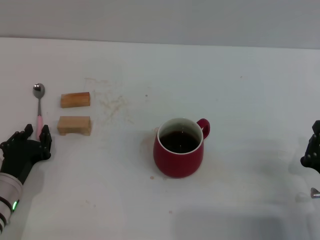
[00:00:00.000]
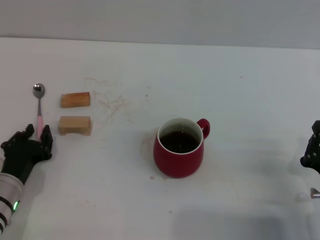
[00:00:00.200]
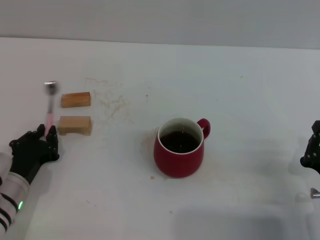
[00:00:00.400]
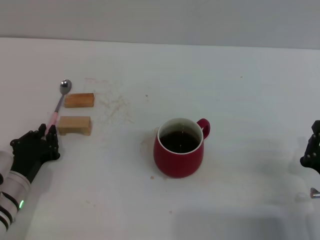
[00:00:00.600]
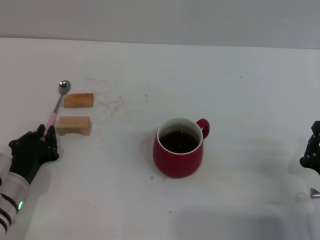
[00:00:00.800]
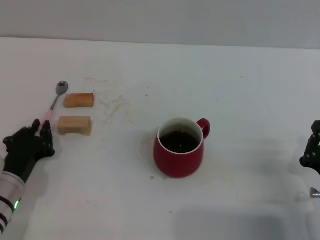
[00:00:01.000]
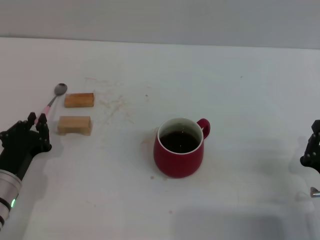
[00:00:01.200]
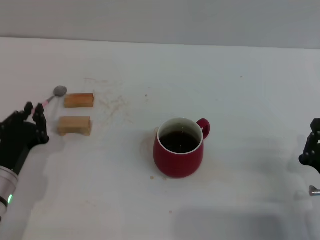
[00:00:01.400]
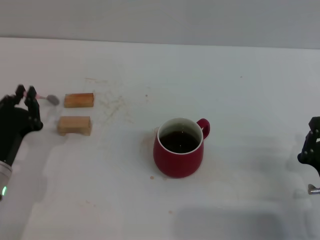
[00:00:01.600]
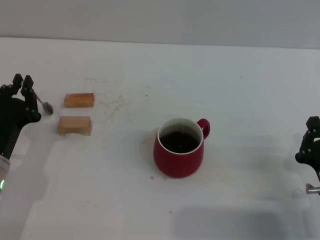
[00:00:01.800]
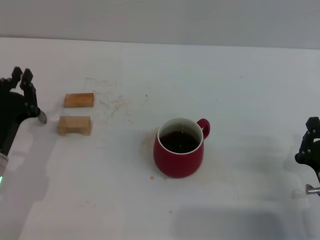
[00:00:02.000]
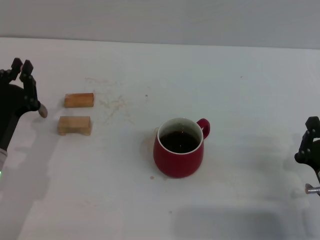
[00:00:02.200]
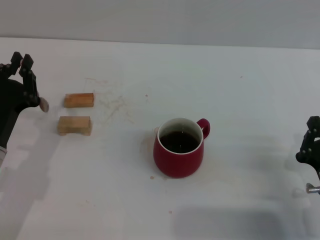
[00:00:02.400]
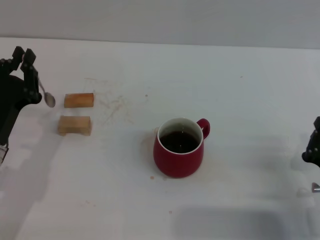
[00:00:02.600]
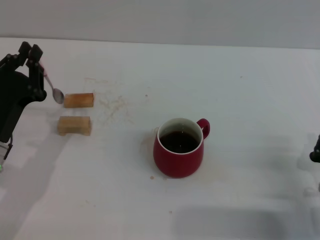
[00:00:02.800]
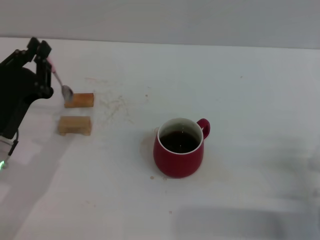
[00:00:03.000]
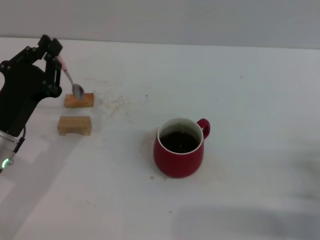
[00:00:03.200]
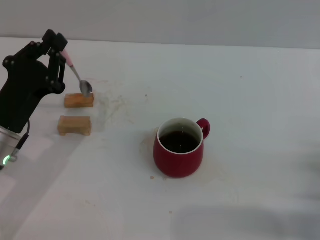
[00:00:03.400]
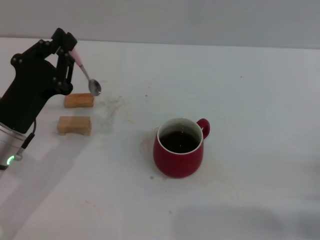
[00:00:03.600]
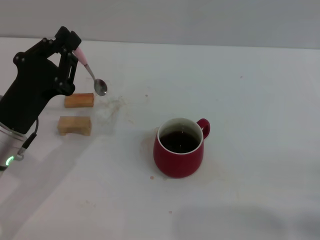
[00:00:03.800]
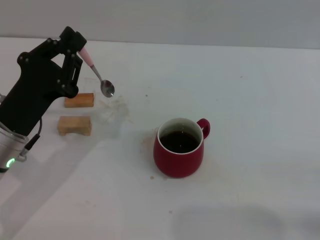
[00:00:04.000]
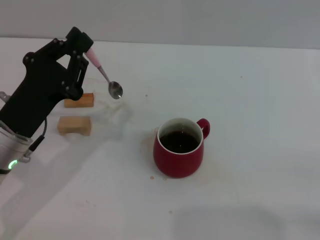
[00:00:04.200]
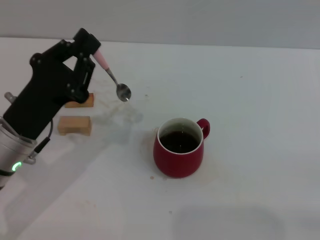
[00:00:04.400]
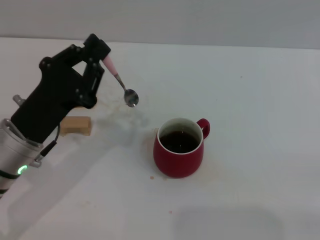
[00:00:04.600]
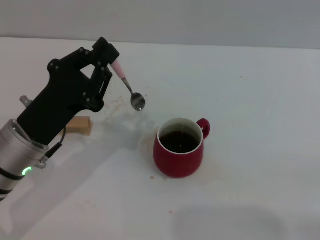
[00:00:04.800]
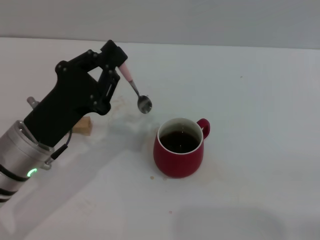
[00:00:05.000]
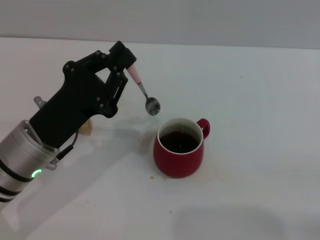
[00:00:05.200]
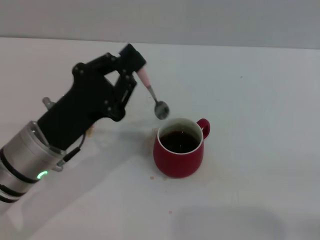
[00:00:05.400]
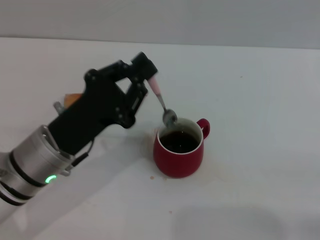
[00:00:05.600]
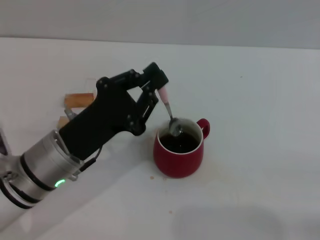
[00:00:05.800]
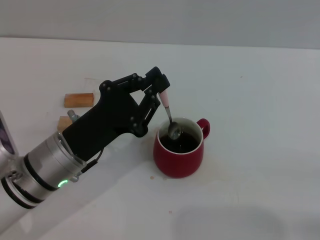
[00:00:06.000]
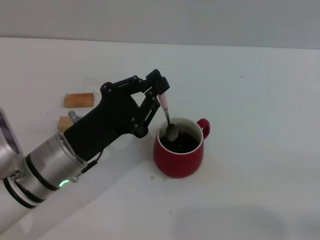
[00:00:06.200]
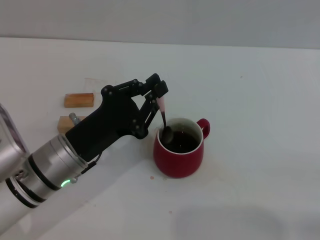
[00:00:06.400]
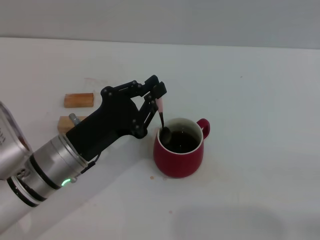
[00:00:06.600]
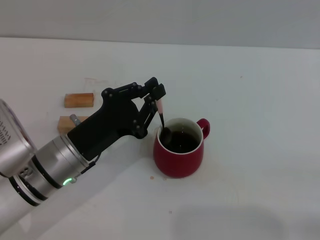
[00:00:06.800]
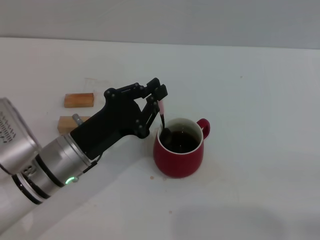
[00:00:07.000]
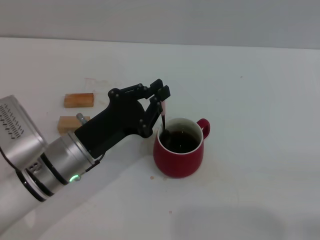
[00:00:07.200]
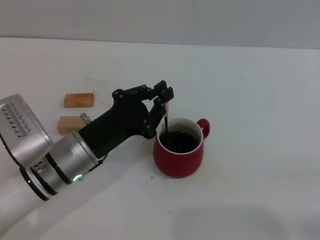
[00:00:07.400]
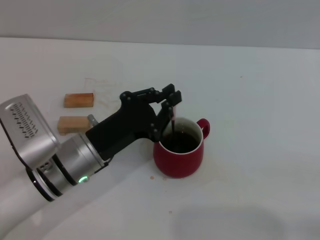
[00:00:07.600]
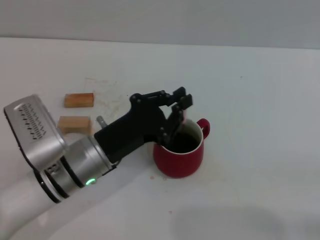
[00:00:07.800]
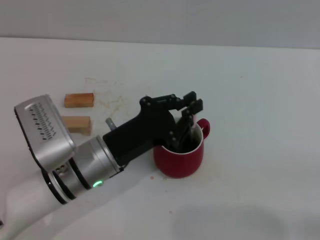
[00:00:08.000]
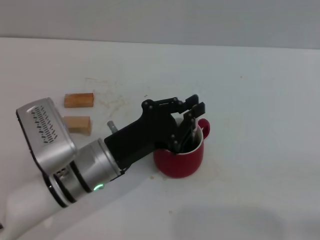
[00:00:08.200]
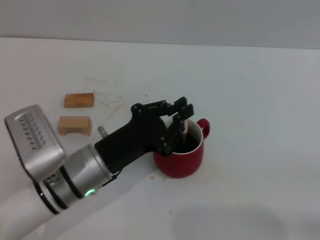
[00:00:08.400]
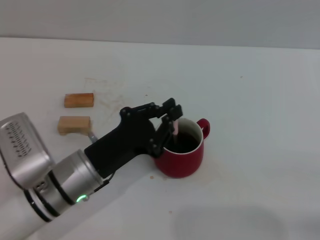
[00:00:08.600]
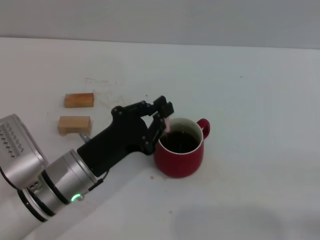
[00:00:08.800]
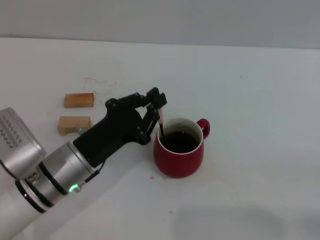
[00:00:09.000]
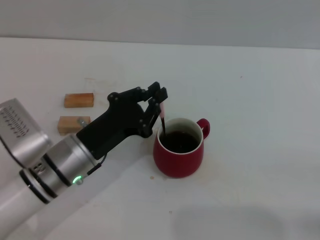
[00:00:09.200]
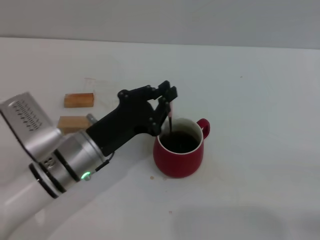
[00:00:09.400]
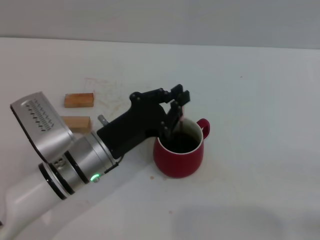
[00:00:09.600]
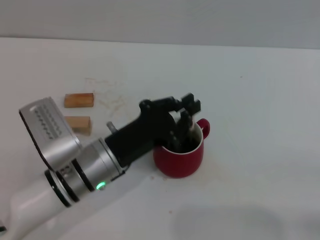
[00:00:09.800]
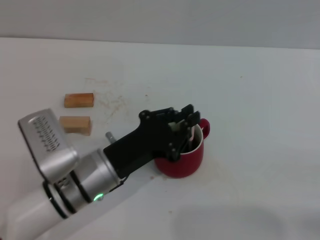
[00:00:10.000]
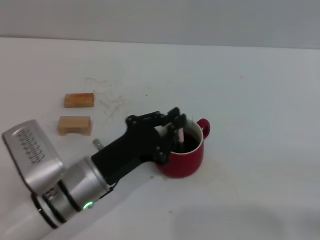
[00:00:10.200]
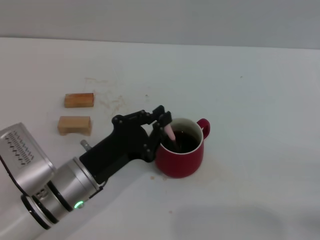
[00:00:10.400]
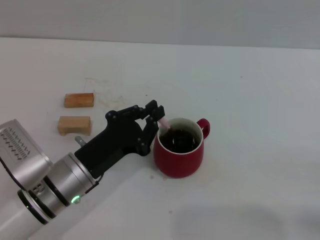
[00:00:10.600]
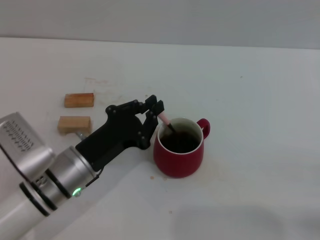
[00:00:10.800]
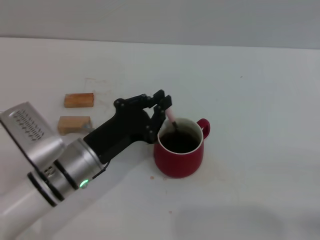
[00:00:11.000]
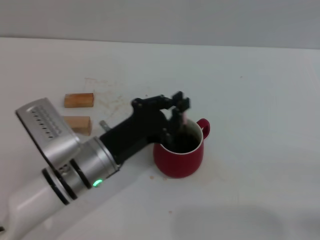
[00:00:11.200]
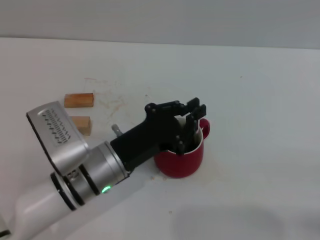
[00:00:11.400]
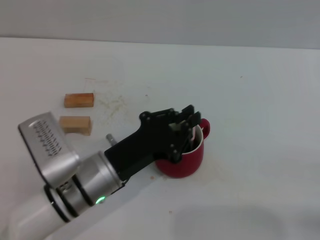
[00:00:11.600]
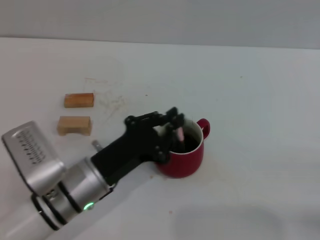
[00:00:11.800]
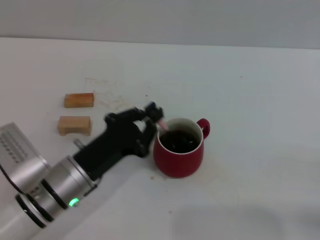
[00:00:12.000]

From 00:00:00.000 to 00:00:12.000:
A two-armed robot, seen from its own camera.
Task of the whole recording: Move the red cup to the center, lift the pink spoon, stir it three times in the cup, and put the spoon into the cup.
From 00:00:00.000 to 00:00:01.600: The grippers move only a little.
From 00:00:01.600 to 00:00:03.000: The left gripper changes place by roughly 5 cm.
From 00:00:03.000 to 00:00:04.400: The right gripper travels to the right by some 5 cm.
From 00:00:04.400 to 00:00:06.000: The left gripper shifts roughly 5 cm to the right.
From 00:00:06.000 to 00:00:12.000: The grippers move only a little.

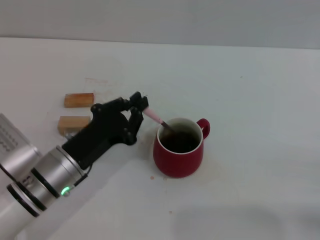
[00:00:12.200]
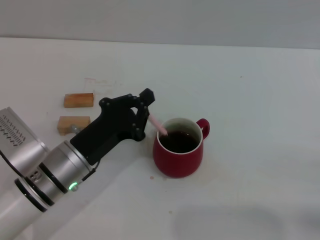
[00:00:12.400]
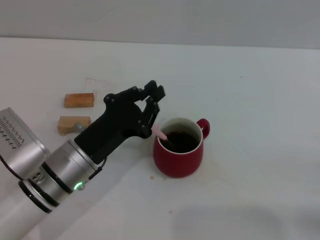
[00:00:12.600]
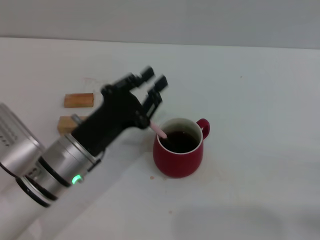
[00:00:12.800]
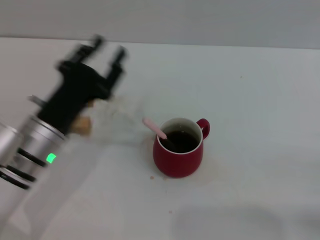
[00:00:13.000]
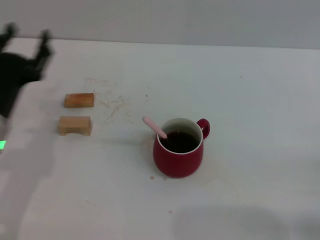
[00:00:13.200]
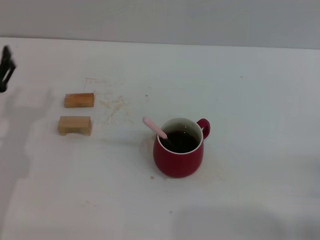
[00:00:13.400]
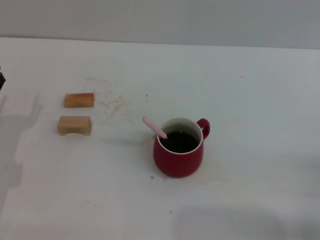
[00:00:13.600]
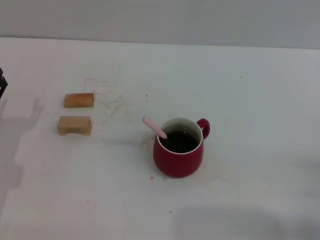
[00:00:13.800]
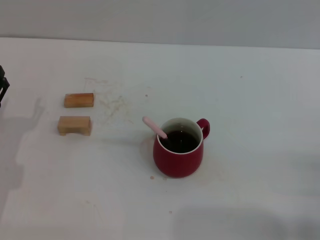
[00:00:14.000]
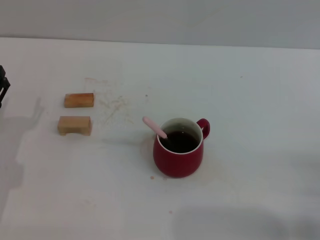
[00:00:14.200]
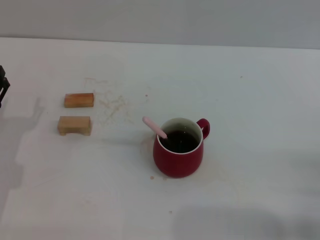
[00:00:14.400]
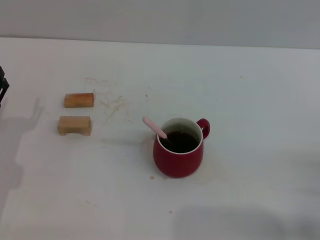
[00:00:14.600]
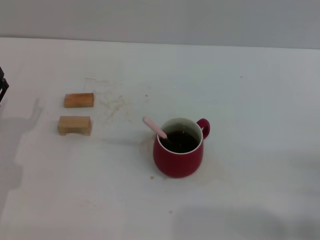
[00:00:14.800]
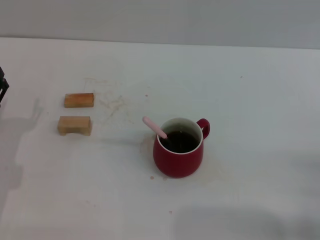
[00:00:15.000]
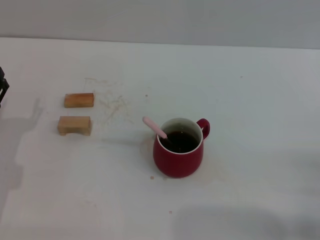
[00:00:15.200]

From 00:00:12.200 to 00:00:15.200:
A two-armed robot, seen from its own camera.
Task of the whole recording: Move the red cup to the center, lift the pink spoon, stir it three times in the cup, and put the spoon into the cup.
From 00:00:12.200 to 00:00:13.800: The left gripper is displaced to the left by about 15 cm, and opens up.
From 00:00:13.800 to 00:00:15.200: The two grippers keep their place.
